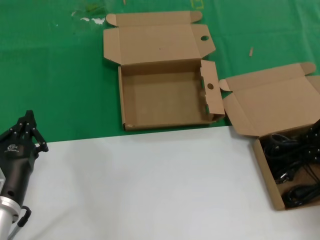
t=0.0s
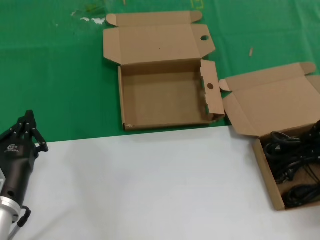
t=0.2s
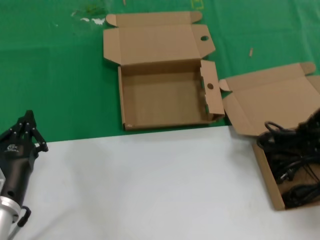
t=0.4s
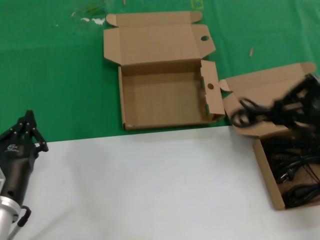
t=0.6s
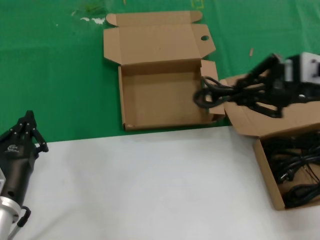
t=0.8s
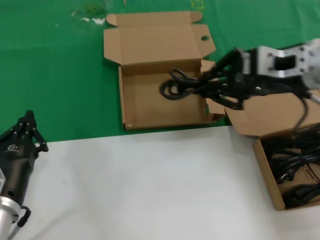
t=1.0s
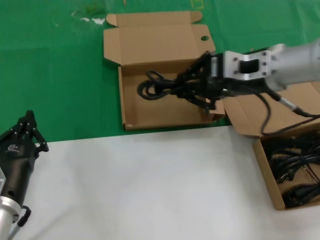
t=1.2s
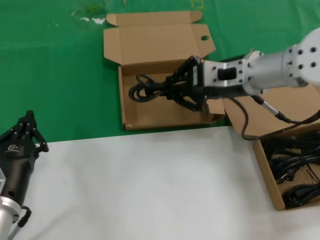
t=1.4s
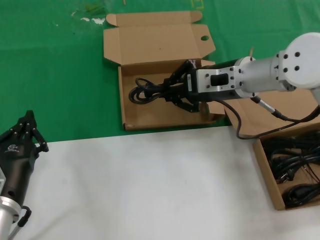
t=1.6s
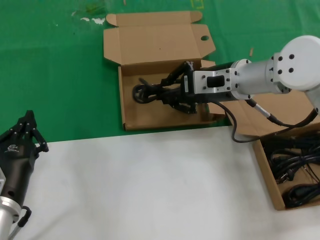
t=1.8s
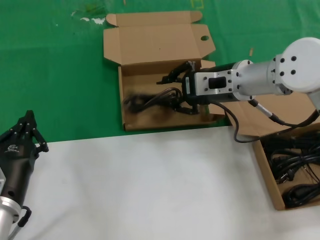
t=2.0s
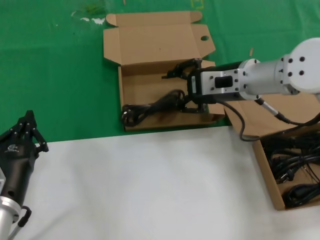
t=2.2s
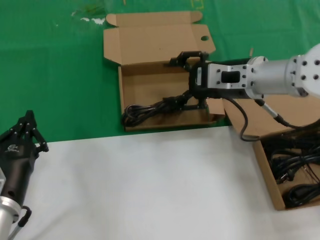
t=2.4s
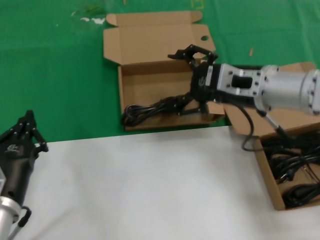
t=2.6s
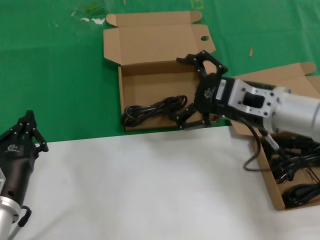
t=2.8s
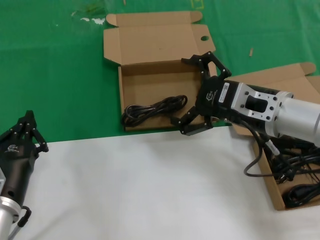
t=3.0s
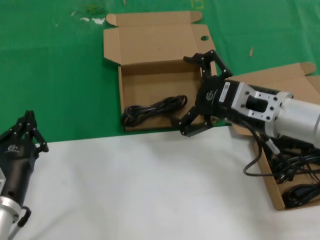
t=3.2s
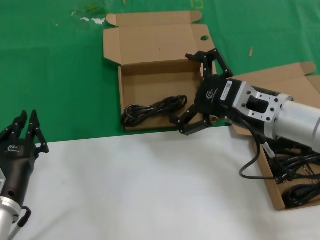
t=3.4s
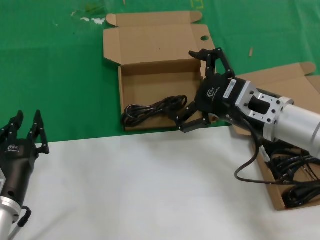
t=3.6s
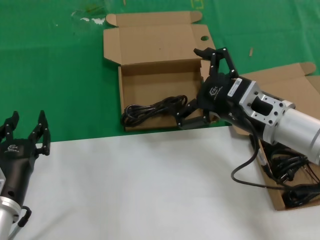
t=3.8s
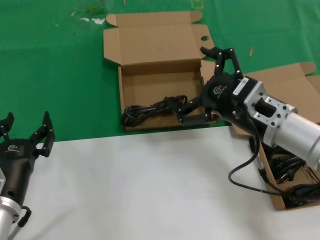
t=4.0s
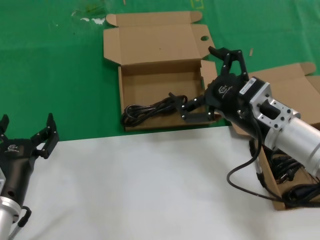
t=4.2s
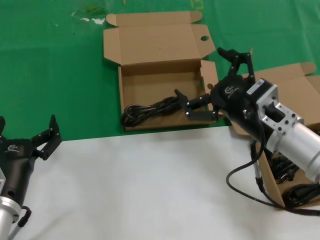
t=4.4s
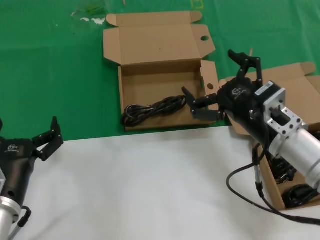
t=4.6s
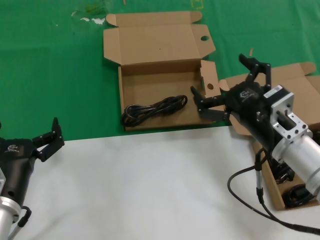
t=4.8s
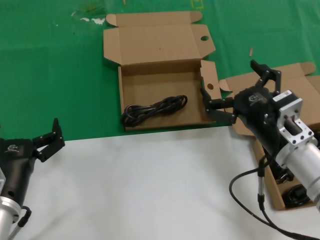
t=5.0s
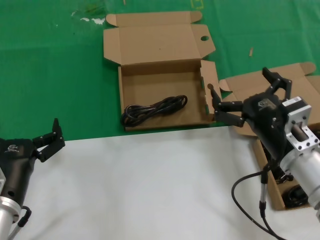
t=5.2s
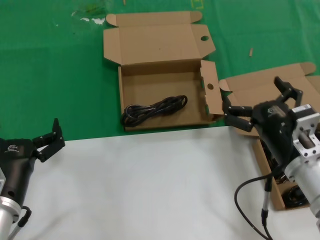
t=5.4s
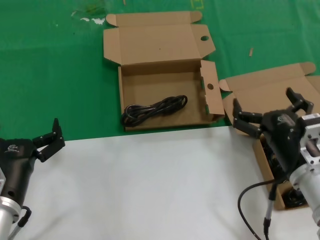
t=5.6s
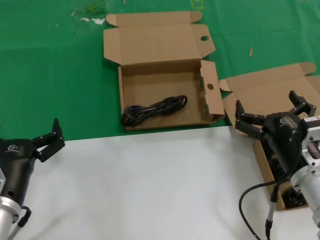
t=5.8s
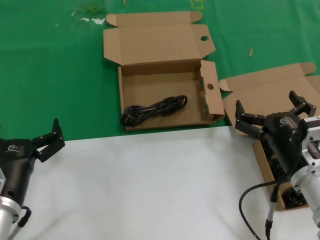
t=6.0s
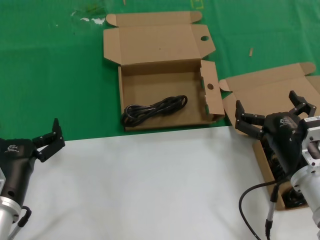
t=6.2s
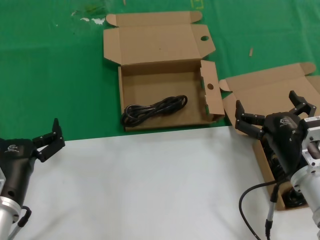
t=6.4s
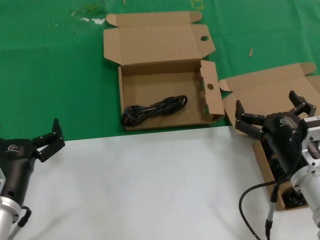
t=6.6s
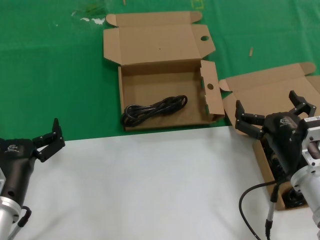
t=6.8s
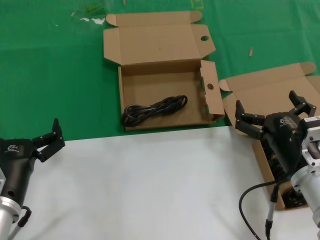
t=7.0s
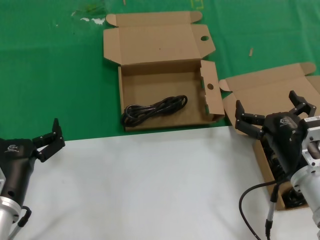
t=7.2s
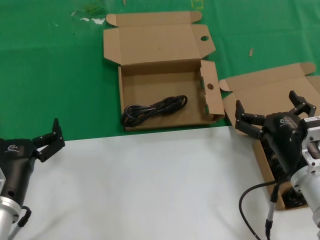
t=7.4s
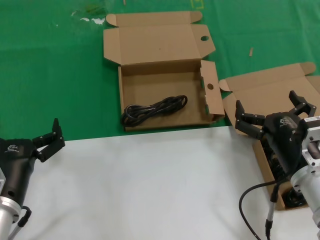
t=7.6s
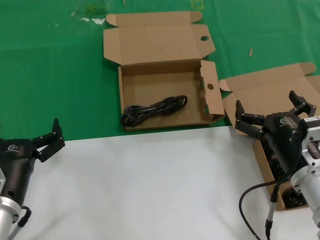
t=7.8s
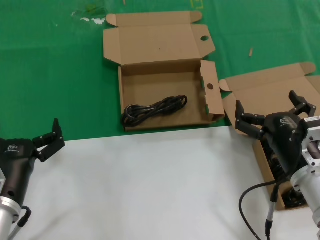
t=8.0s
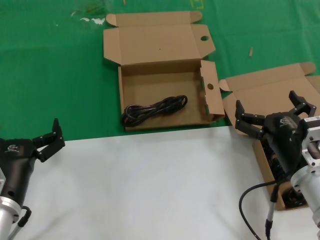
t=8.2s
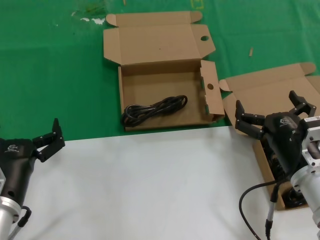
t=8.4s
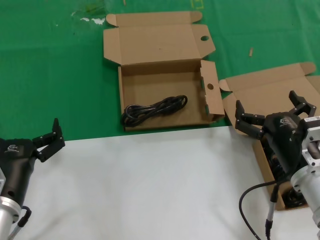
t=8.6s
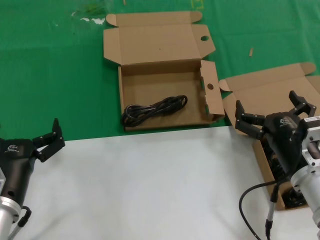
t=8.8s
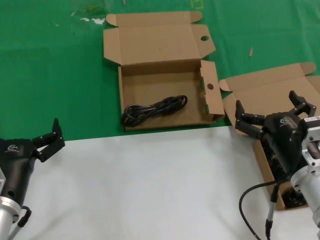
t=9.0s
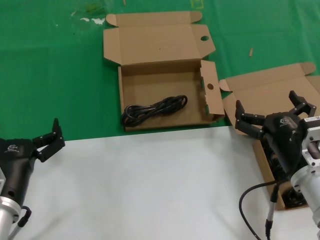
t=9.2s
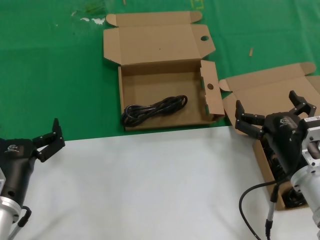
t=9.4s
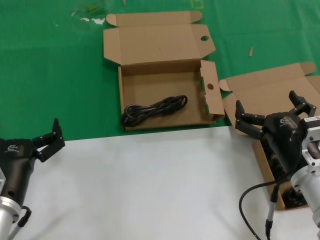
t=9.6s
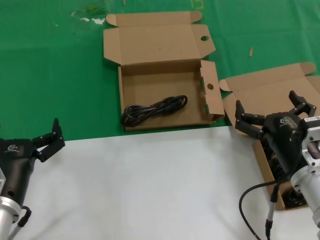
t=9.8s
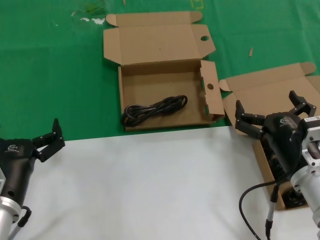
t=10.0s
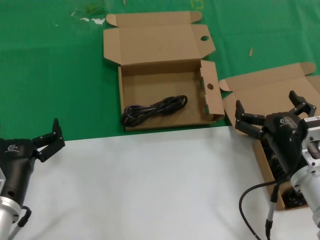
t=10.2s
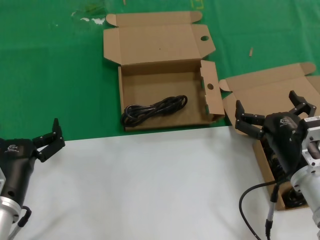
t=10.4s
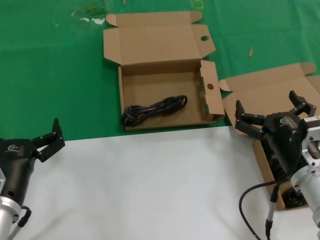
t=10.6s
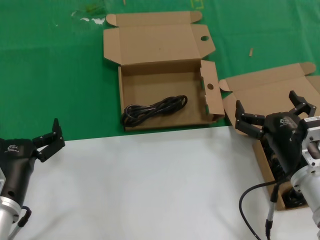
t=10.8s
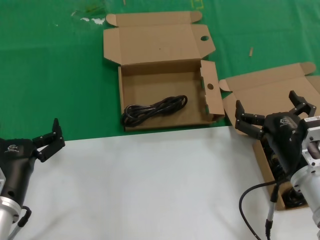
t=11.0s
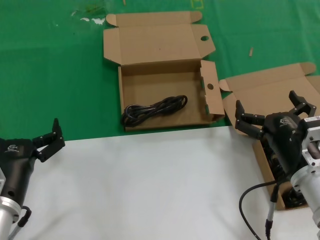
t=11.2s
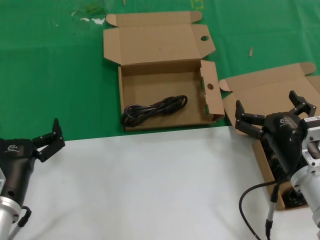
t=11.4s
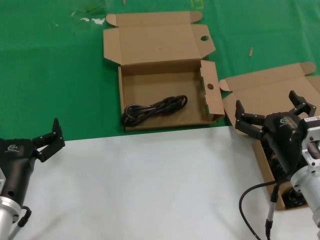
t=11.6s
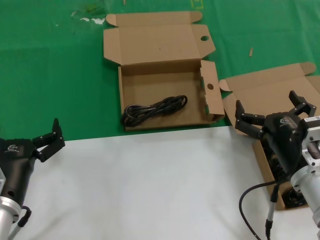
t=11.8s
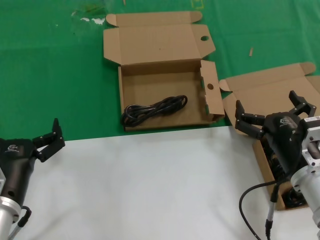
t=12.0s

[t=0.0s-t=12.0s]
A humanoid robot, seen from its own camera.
Task of the whole recording: take the parts from the box containing them and put them into an empty box.
Step, t=0.0s to t=2.4s: Place the data cable in the another box.
t=0.0s to t=1.6s: The right hand shifts roughly 25 cm to the left and forward.
t=1.6s to t=3.0s: The right hand goes roughly 10 cm backward.
t=3.0s to t=4.4s: The right hand is displaced downward by some 5 cm.
t=4.4s to t=6.0s: The right hand heads downward, covering approximately 10 cm.
t=6.0s to t=12.0s: Neither hand changes place.

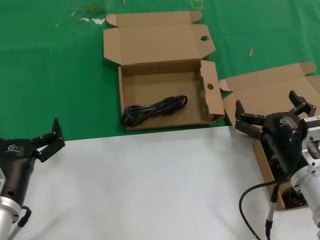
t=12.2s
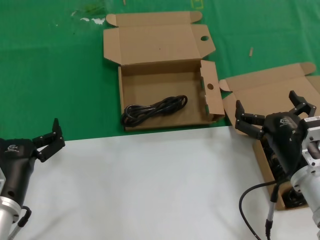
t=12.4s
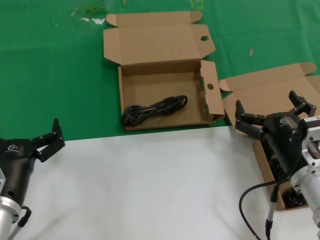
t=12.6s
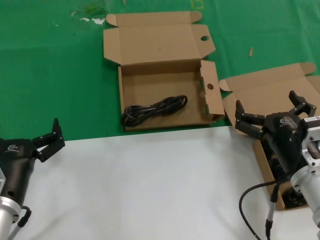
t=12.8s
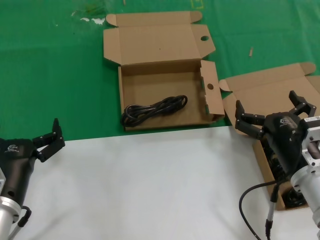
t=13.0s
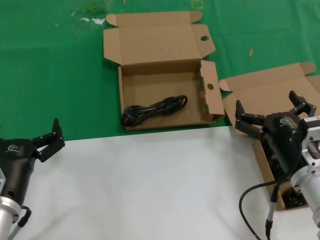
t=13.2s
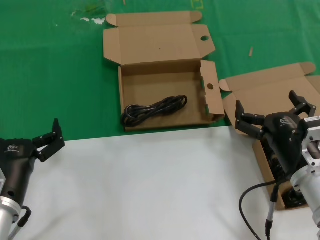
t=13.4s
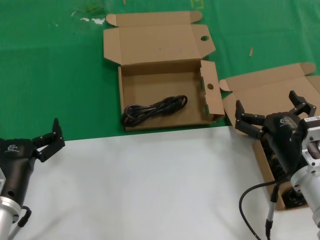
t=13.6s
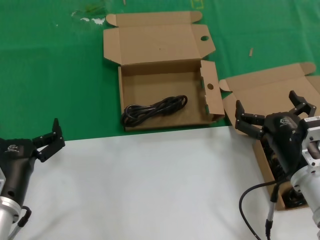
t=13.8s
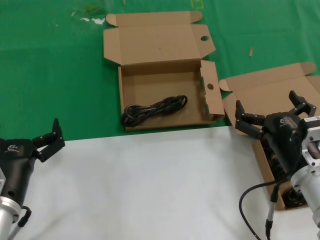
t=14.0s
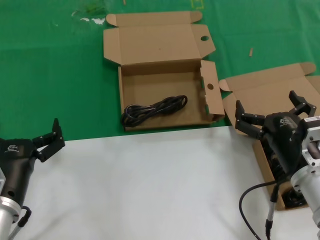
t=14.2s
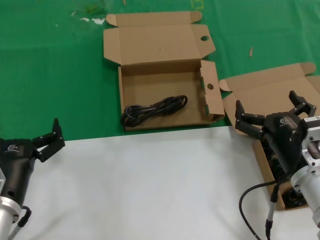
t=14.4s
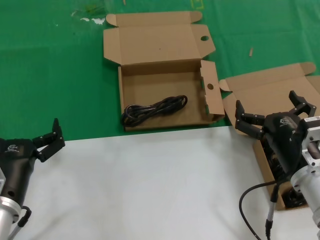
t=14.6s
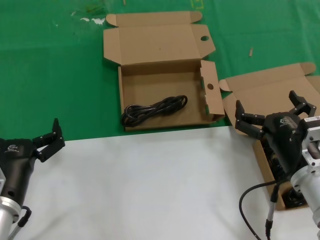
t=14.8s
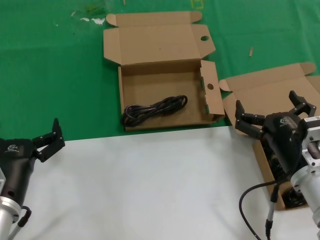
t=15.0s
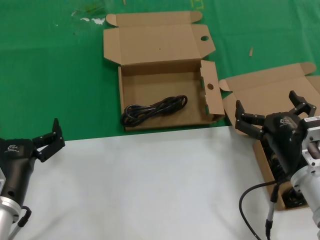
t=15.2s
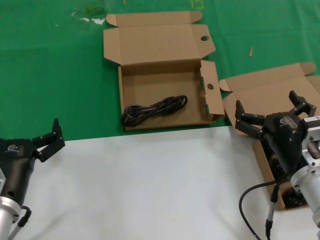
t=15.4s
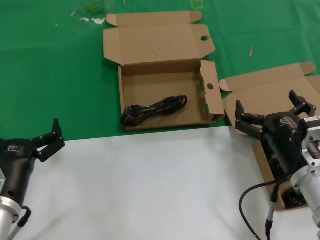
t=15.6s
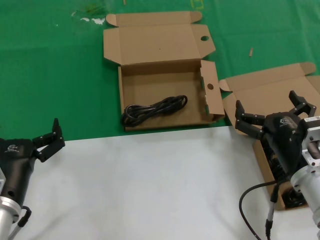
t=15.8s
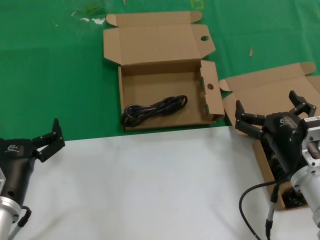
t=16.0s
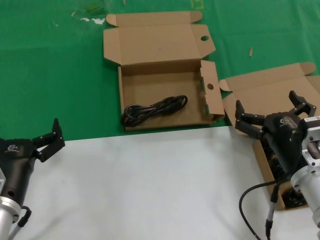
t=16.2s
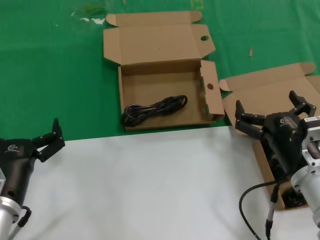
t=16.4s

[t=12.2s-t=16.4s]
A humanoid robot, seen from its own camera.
Task of the whole recording: take the parts from the box containing them and put them into an empty box.
t=12.2s to t=16.4s: Both hands stay about where they are.
